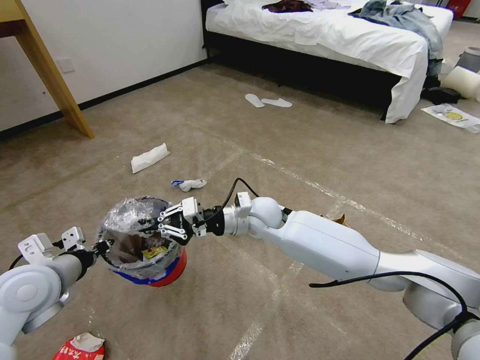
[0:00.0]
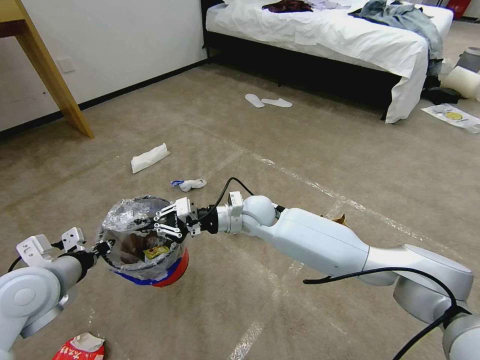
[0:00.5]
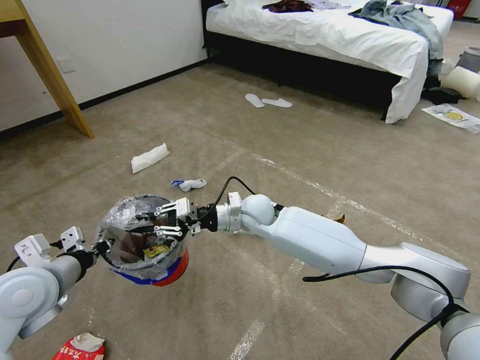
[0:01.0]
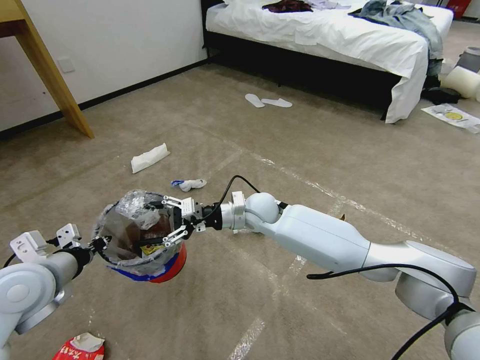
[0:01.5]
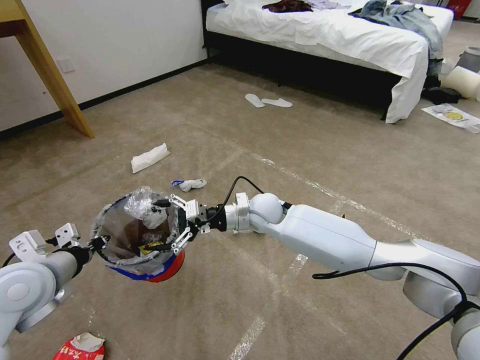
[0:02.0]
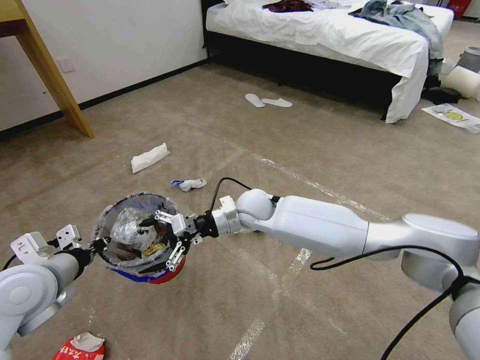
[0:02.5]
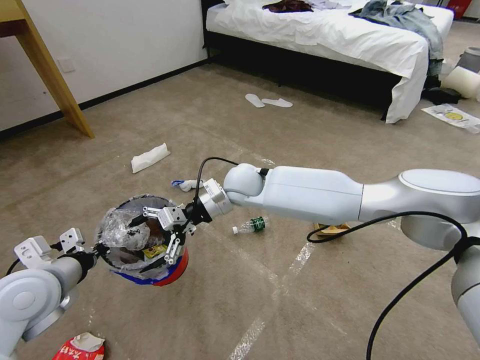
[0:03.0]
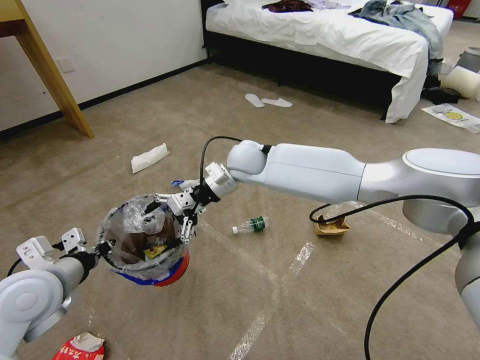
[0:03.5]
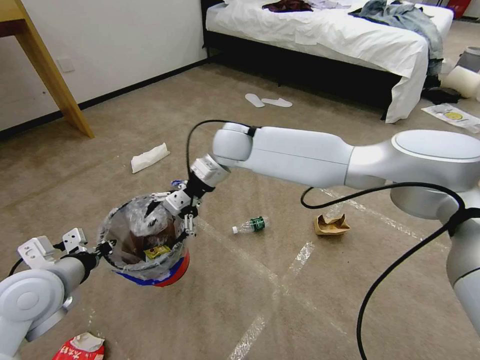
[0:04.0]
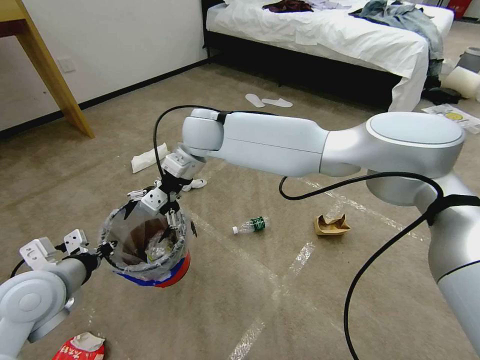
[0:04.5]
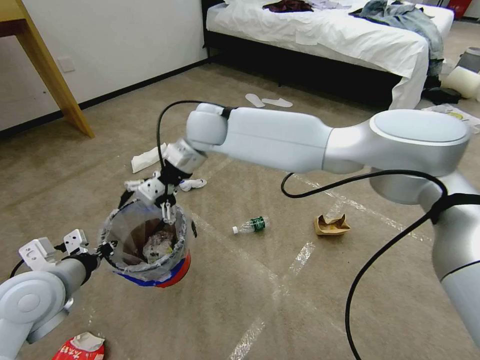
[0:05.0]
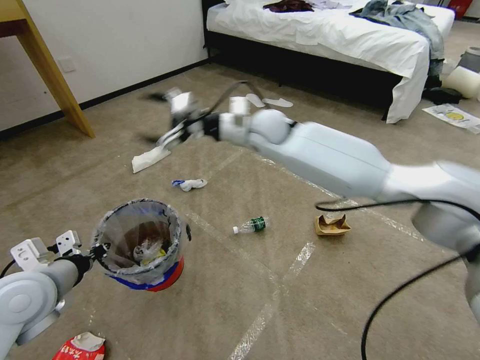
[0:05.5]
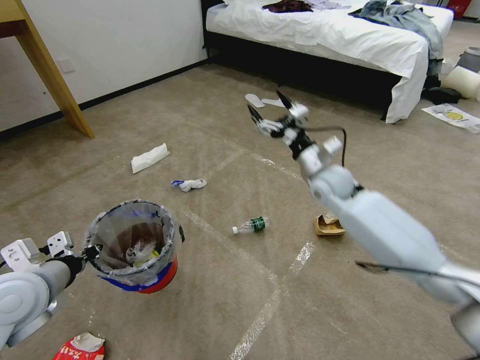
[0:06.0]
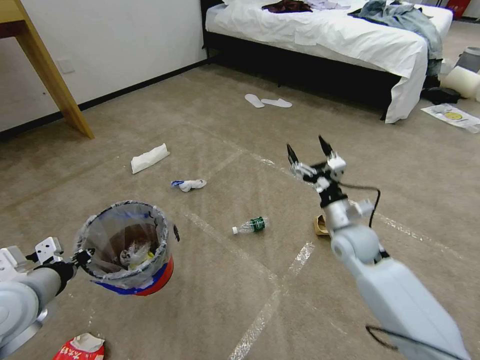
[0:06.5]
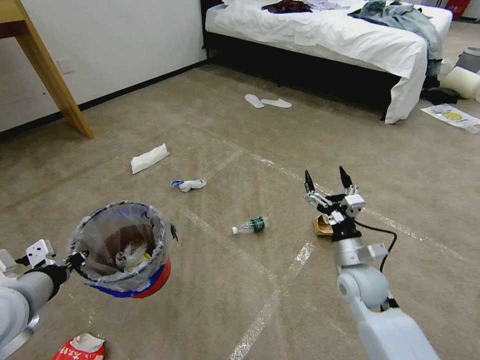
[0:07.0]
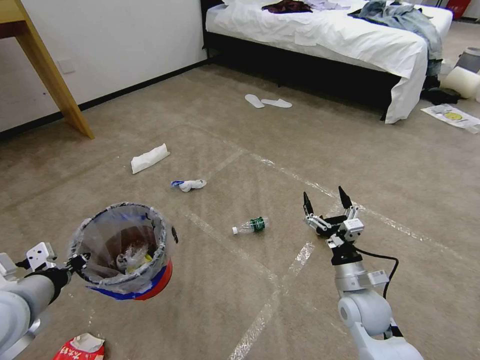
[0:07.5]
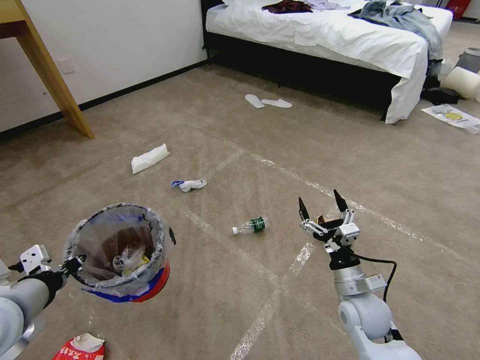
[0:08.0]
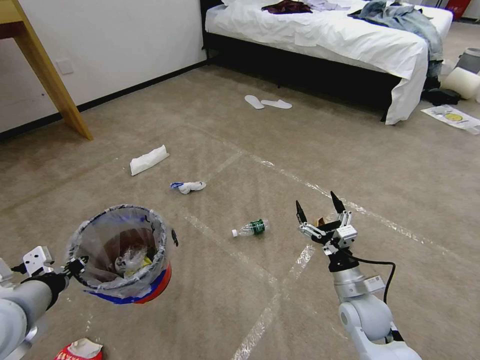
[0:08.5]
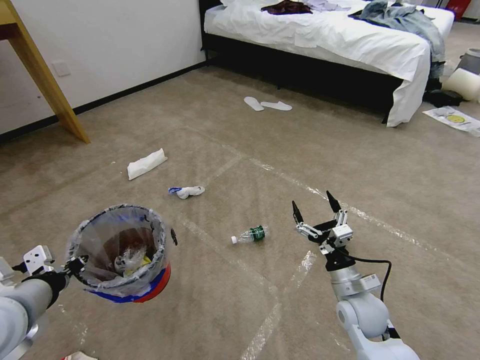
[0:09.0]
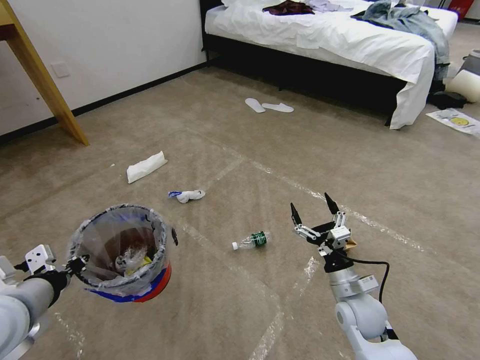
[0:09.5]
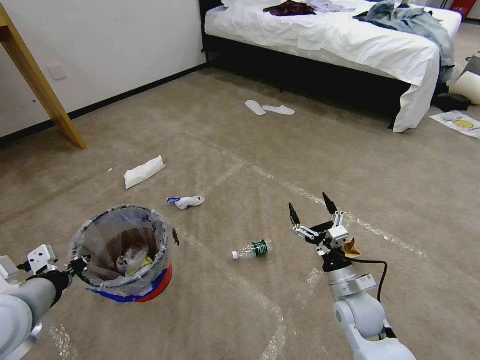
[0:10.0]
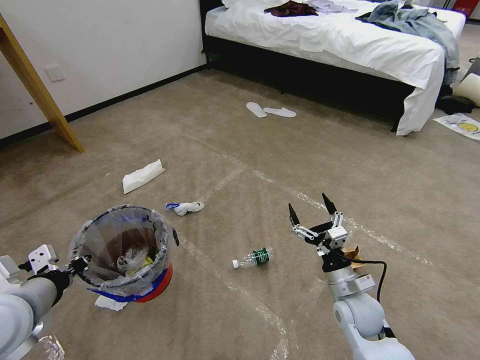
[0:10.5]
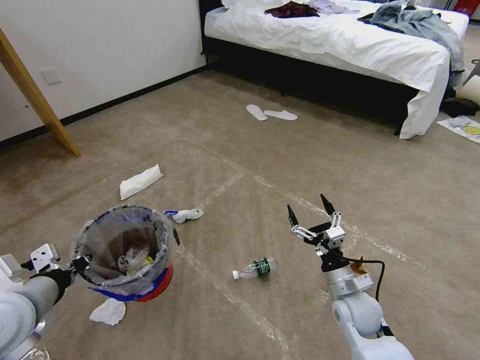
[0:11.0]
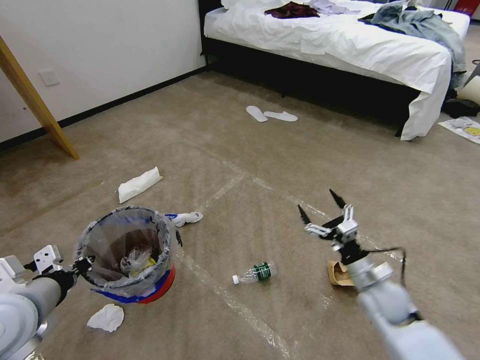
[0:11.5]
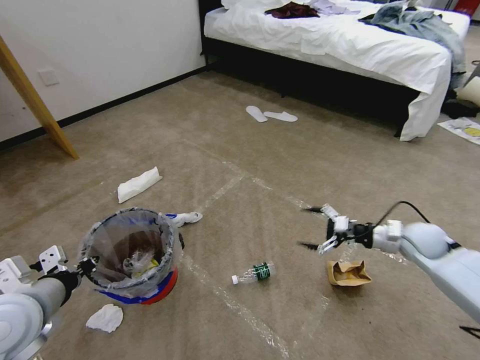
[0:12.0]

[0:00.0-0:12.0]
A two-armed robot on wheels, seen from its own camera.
Task of the whole recording: Pick up the trash bin and place the garbage on the floor into it.
0:00.0 to 0:02.0: The right gripper opens its fingers.
0:02.0 to 0:04.0: The right gripper travels upward, to the left and forward by roughly 20 cm.
0:04.0 to 0:06.0: The right gripper heads to the right, covering roughly 25 cm.
0:06.0 to 0:08.0: The left gripper ends up some 5 cm from where it was. Meanwhile the right gripper heads backward and downward, covering about 30 cm.
0:10.0 to 0:12.0: The right gripper moves to the right, forward and upward, approximately 25 cm.

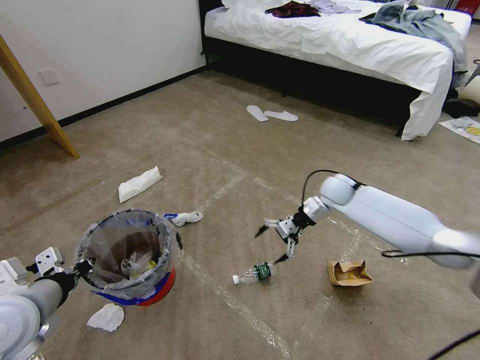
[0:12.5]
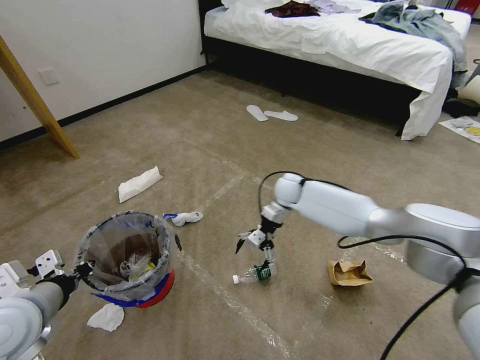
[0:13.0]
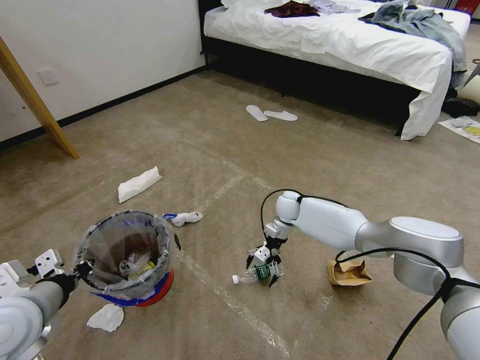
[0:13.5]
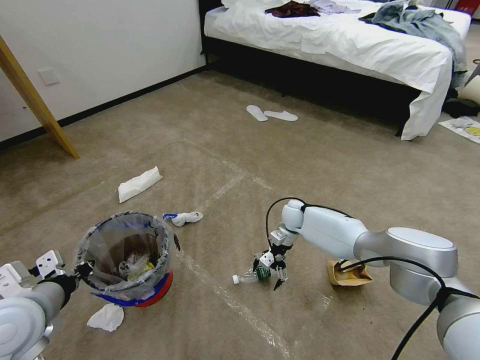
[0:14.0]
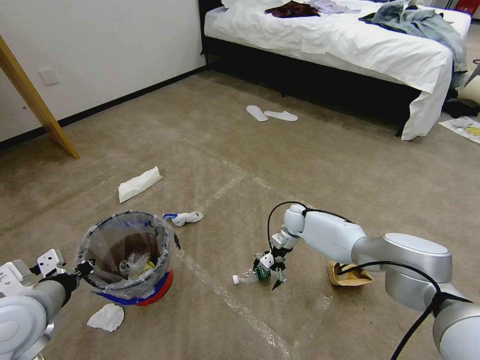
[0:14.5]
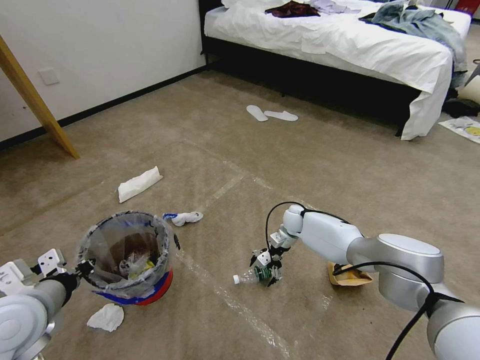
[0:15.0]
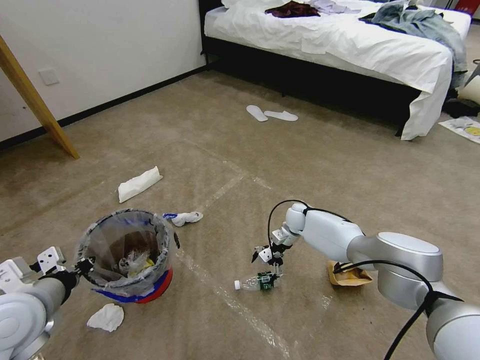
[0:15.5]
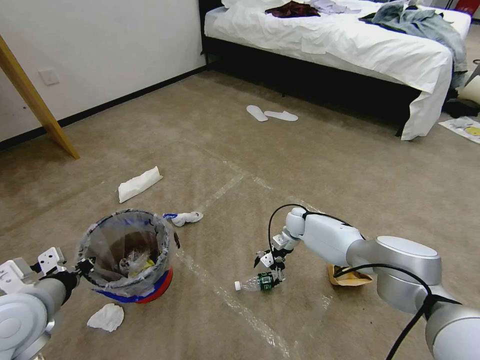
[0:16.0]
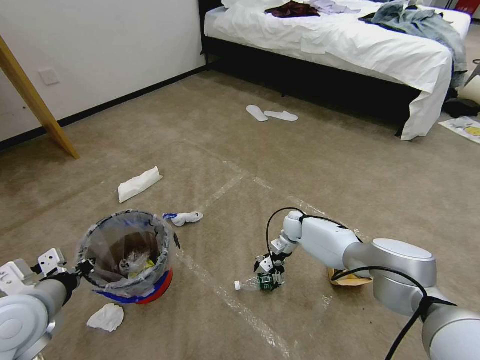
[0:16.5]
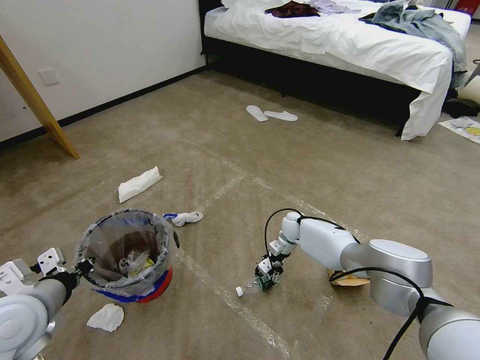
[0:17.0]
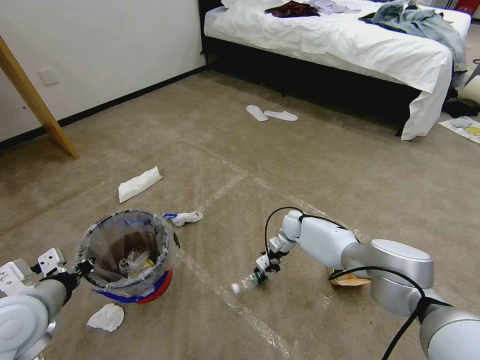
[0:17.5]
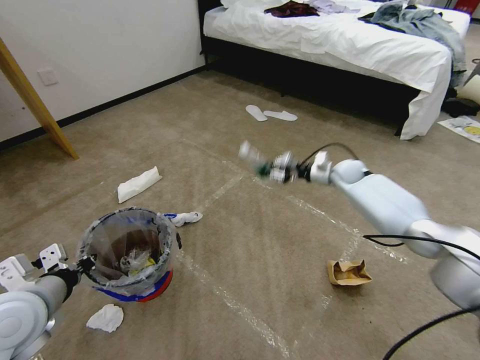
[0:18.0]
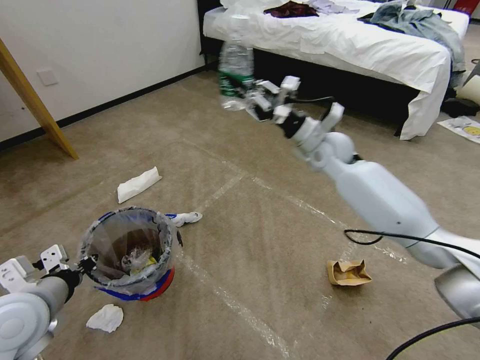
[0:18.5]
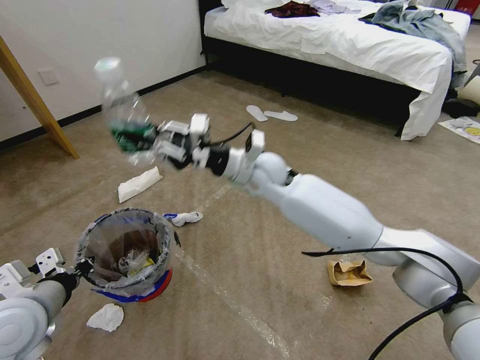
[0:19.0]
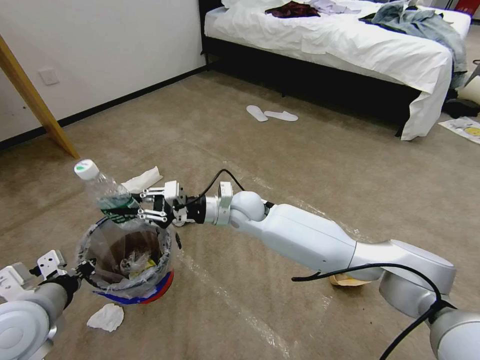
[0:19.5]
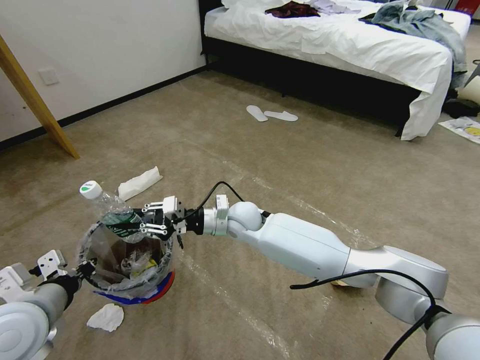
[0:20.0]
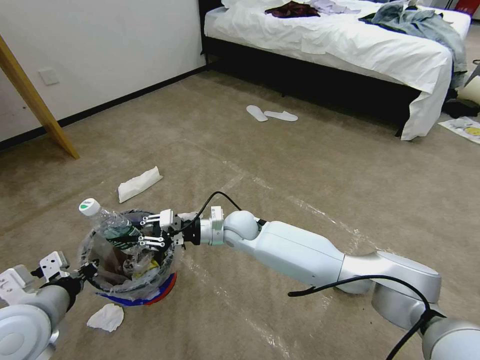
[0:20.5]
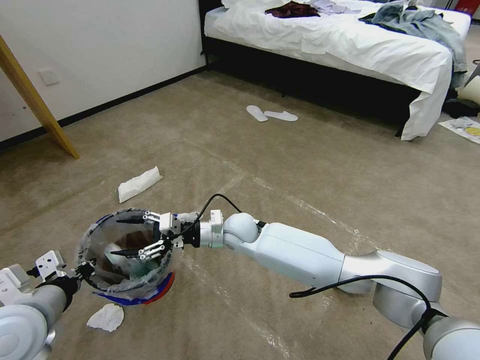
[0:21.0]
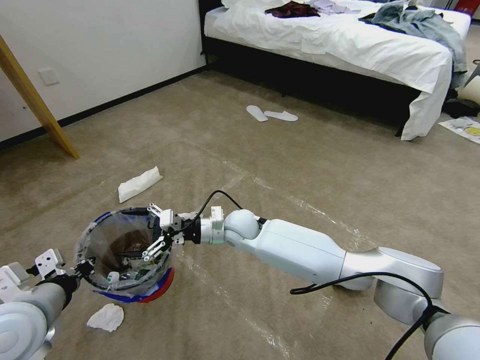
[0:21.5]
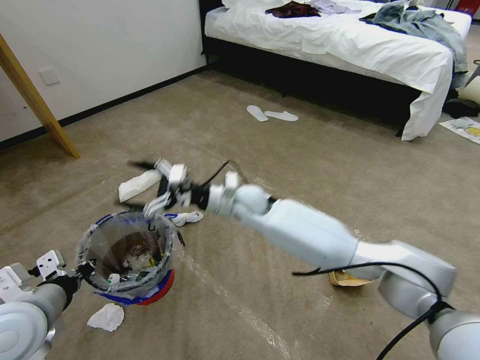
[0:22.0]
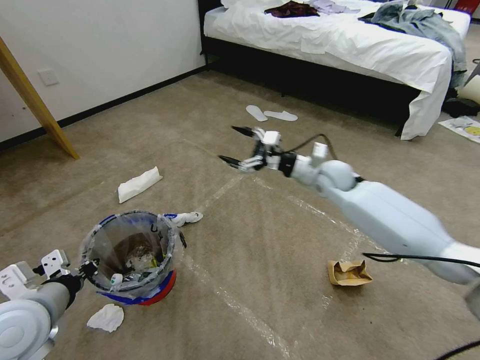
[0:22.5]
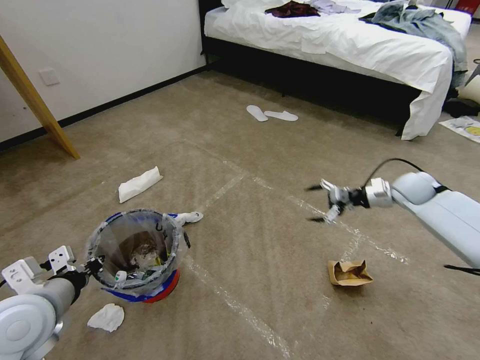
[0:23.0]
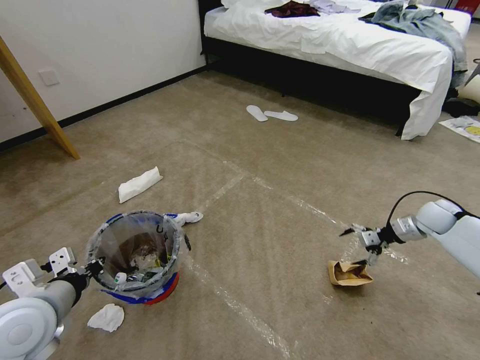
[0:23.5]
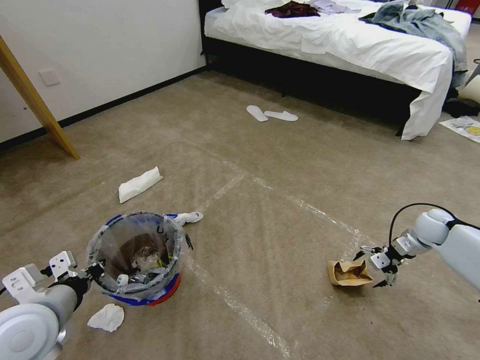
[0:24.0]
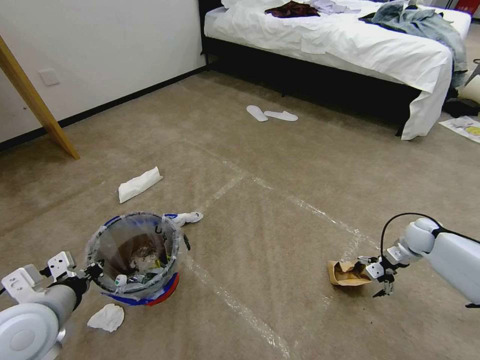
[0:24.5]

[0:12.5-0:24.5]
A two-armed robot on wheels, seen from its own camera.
Task of the whole recording: Pick up the trash bin and place the garbage on the floor into it.
0:12.5 to 0:14.5: The right gripper goes roughly 15 cm downward and to the left.
0:14.5 to 0:16.5: The grippers move only a little.
0:16.5 to 0:18.5: The right gripper moves upward, roughly 30 cm, and closes.
0:18.5 to 0:20.5: The right gripper is displaced to the left, downward and backward by roughly 30 cm.
0:20.5 to 0:22.5: The right gripper heads to the right, covering about 25 cm, and opens.
0:22.5 to 0:24.5: The right gripper travels to the right and downward by some 35 cm.

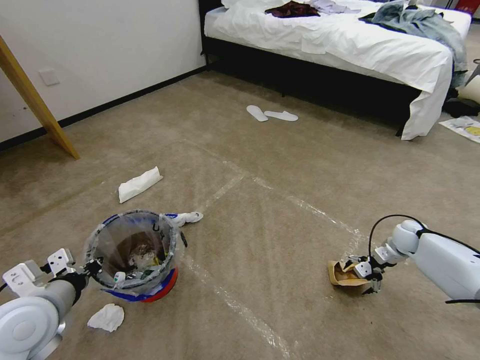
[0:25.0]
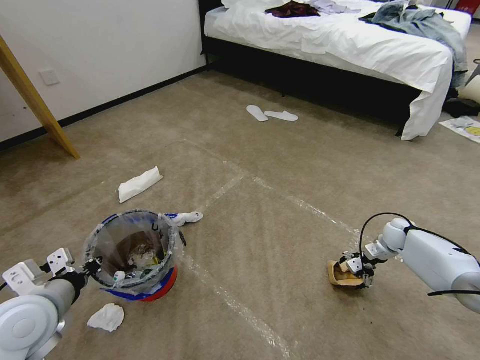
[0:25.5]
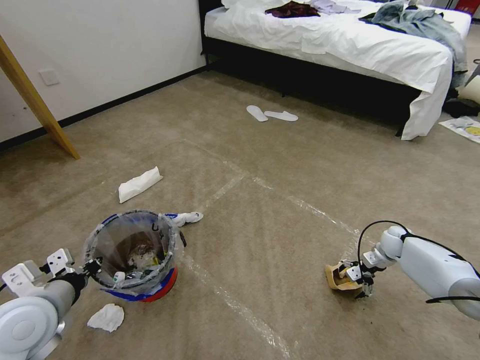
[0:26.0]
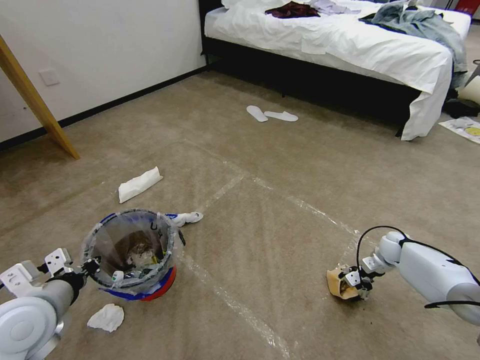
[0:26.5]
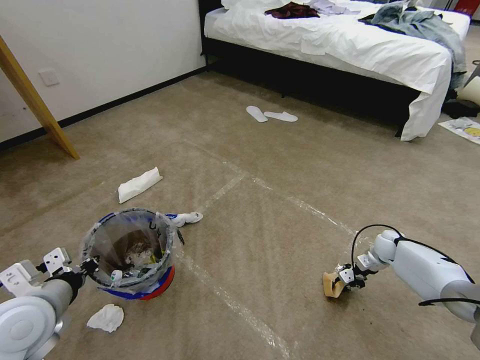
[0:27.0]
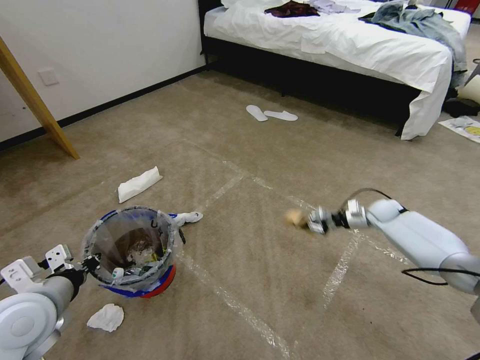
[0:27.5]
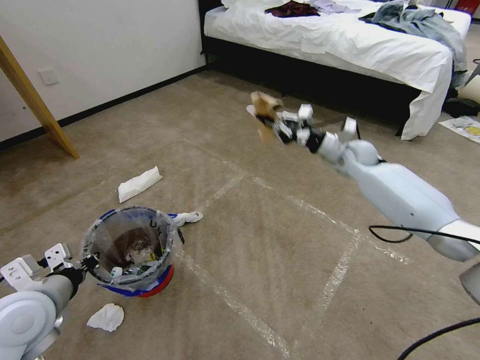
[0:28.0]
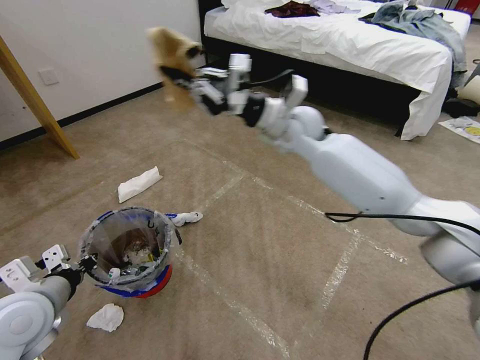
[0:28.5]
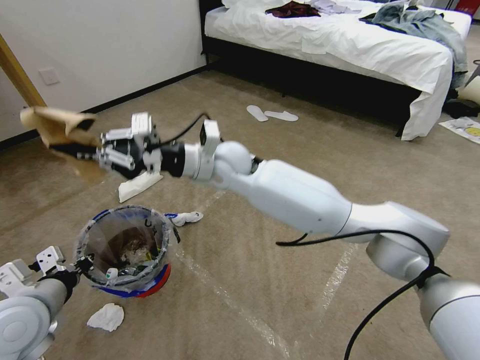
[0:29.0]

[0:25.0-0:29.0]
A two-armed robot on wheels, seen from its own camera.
Task of the whole recording: Pick up the trash bin and place the garbage on the floor into it.
0:25.0 to 0:27.0: The right gripper travels downward by about 5 cm, and closes.
0:27.0 to 0:29.0: The right gripper goes some 60 cm to the left and upward.
